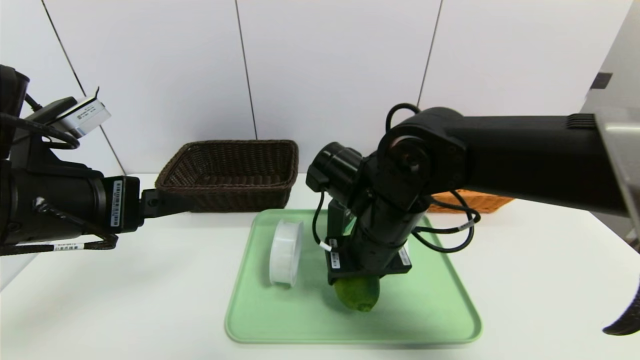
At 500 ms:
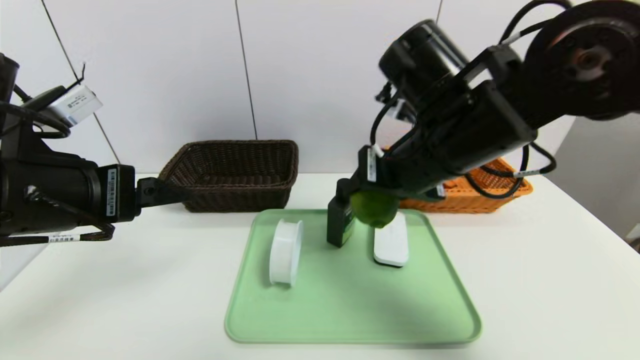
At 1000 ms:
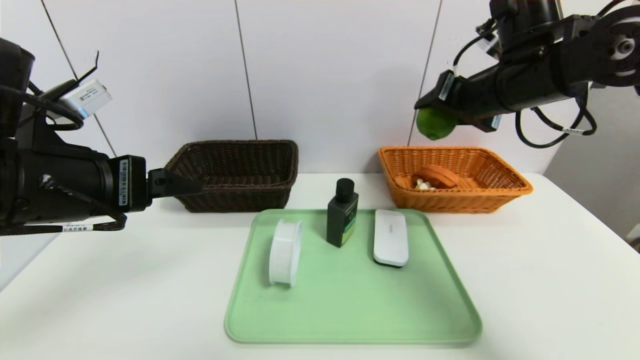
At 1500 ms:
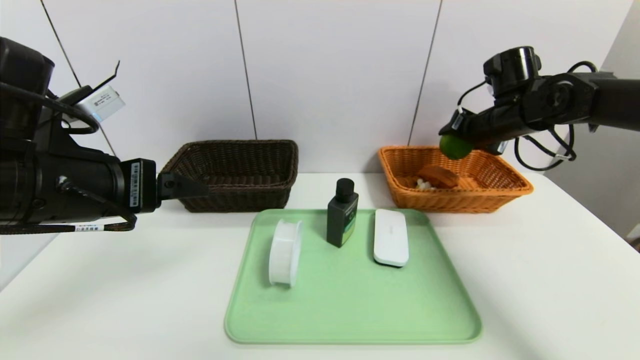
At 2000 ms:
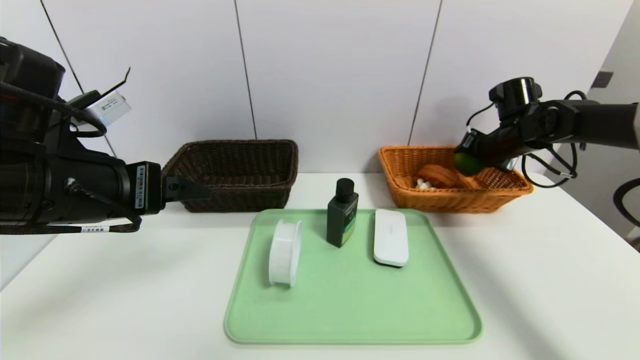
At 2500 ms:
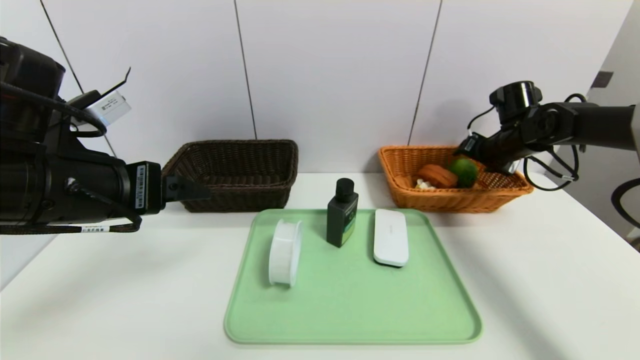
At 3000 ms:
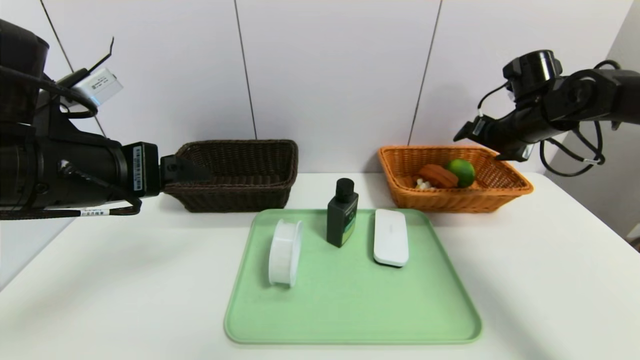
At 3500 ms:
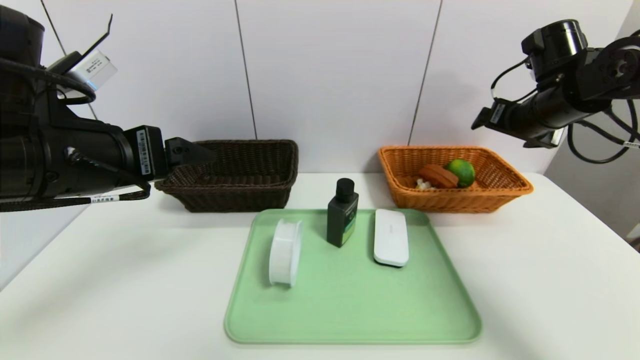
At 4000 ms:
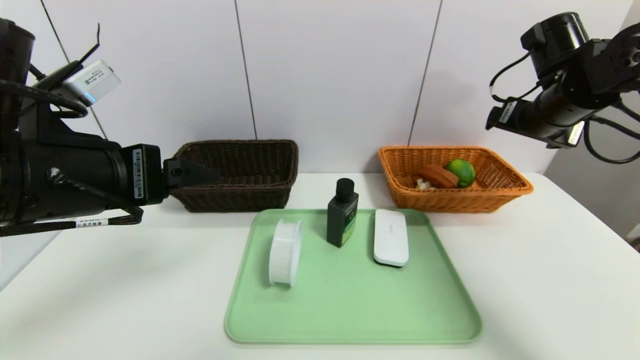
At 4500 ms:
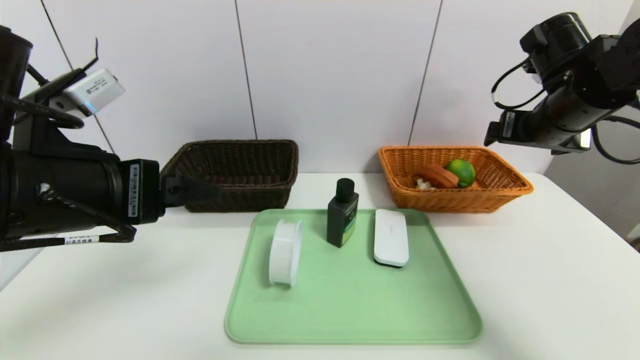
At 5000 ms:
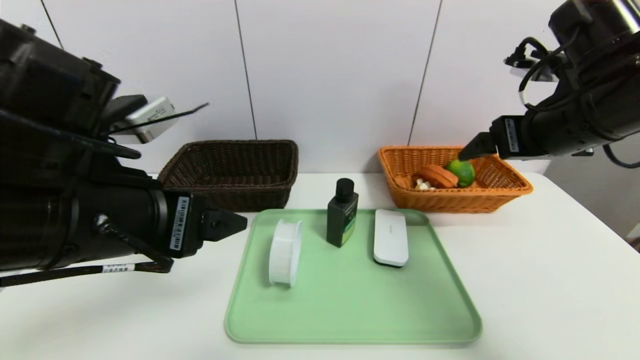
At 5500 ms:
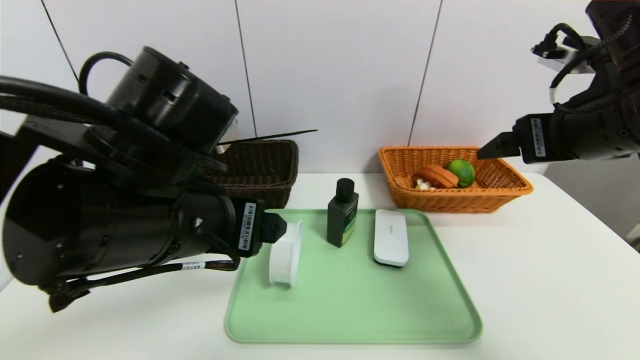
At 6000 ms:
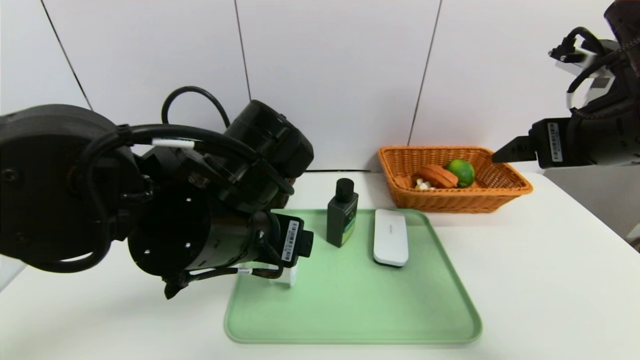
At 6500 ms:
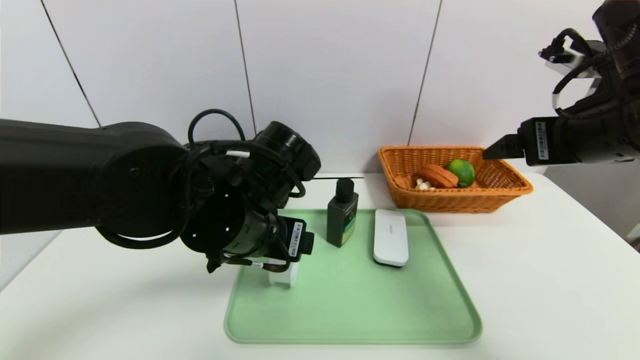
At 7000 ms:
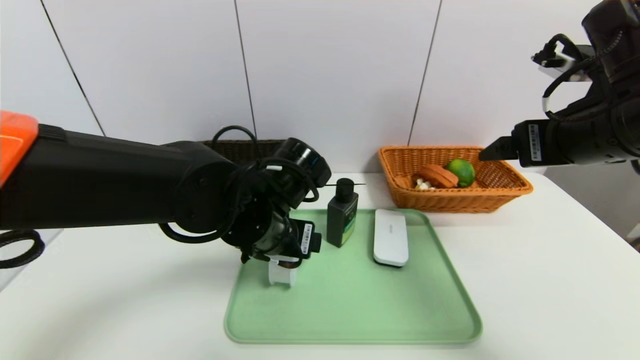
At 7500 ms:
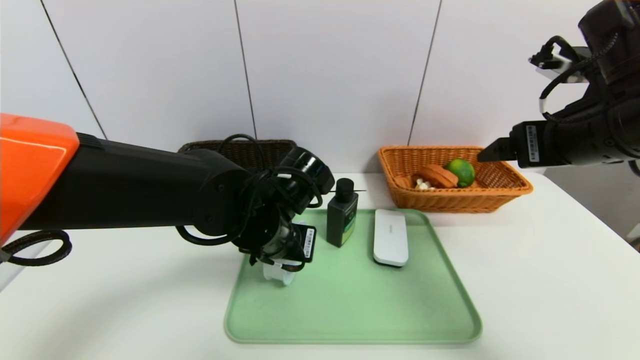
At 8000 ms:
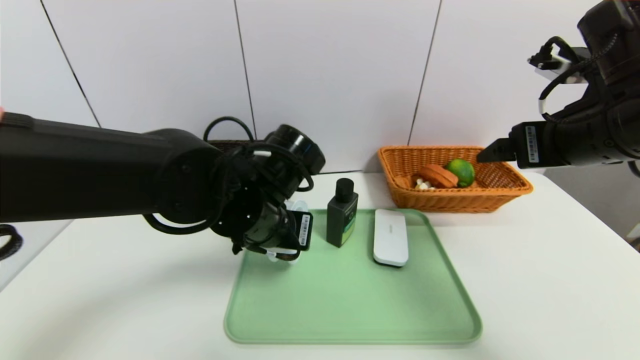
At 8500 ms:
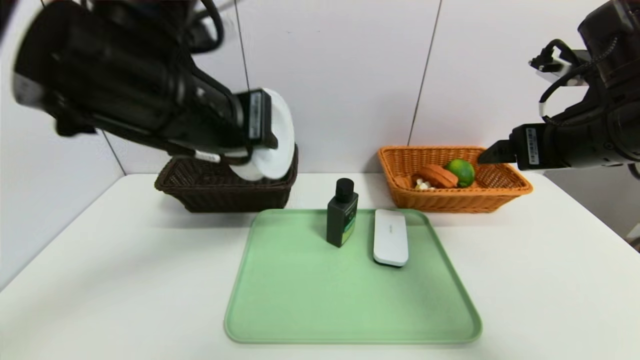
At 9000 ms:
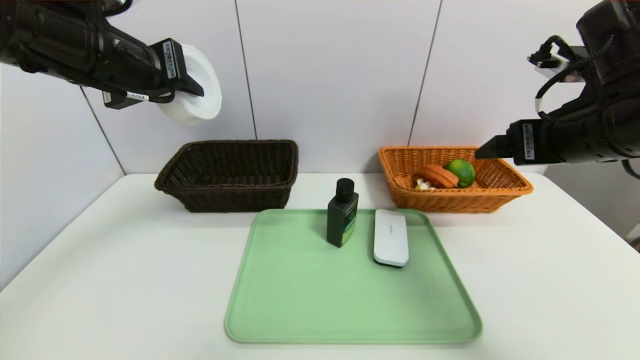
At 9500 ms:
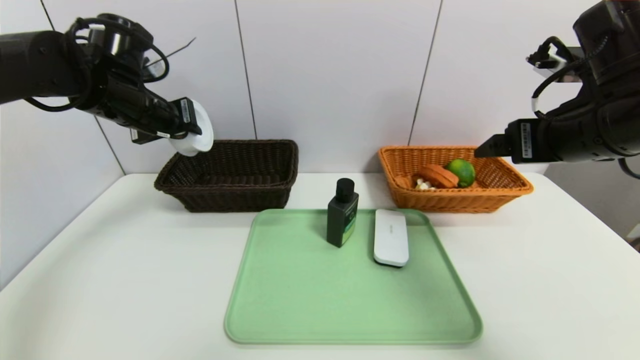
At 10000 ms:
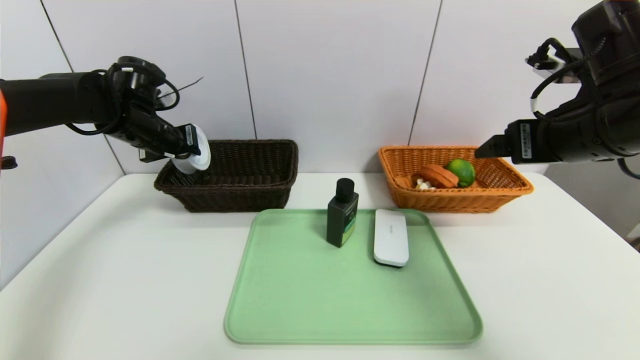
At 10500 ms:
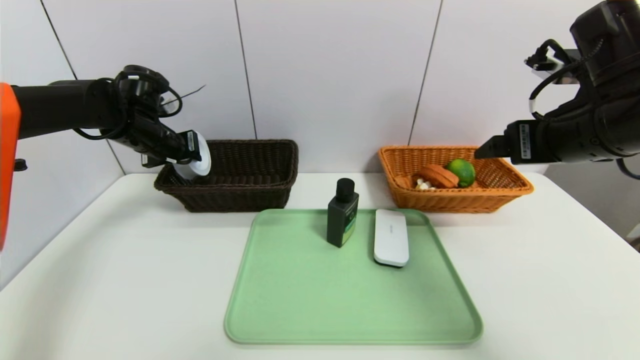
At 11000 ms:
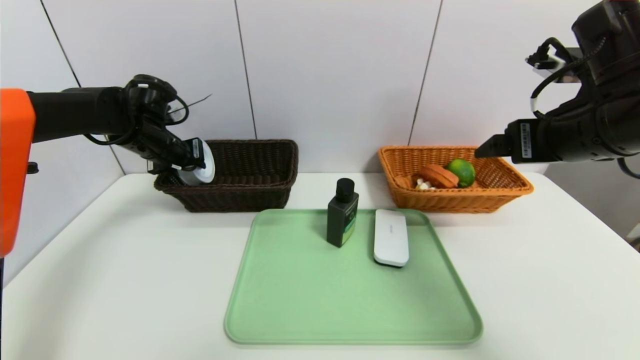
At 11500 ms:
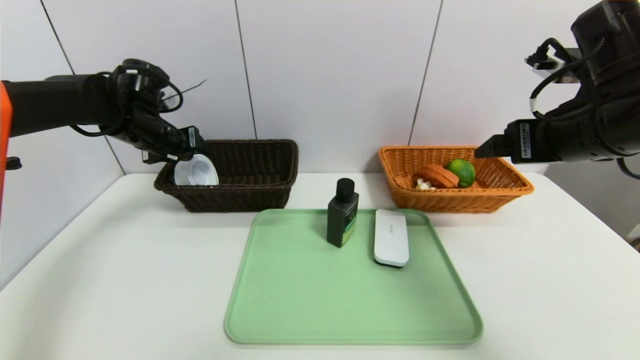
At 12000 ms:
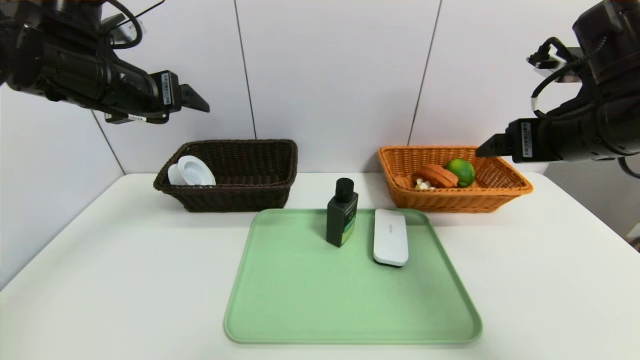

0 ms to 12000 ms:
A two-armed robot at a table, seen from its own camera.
Task of the whole recording: place the food in the right basket with the right gripper, and place the non food items in the left basket with the left gripper.
Step, 0 ms to 2500 ms: Grasp the lime and put it in the right basket.
Step, 3000 ms to 11500 ms: Grasp the tape and put it in the left basket.
0 ms to 2000 ms: The right gripper travels to the right and forward by approximately 35 cm.
2000 ms to 4000 ms: The right gripper heads backward and upward, covering approximately 15 cm, and opens.
4000 ms to 6000 ms: The right gripper goes roughly 15 cm backward; the left gripper goes roughly 15 cm to the right and downward.
6000 ms to 8000 ms: The left gripper travels forward by approximately 5 cm, and closes up.
8000 ms to 10000 ms: The left gripper heads to the left and forward, covering roughly 25 cm.
10000 ms to 12000 ms: The left gripper travels backward and upward by approximately 15 cm, and opens up.

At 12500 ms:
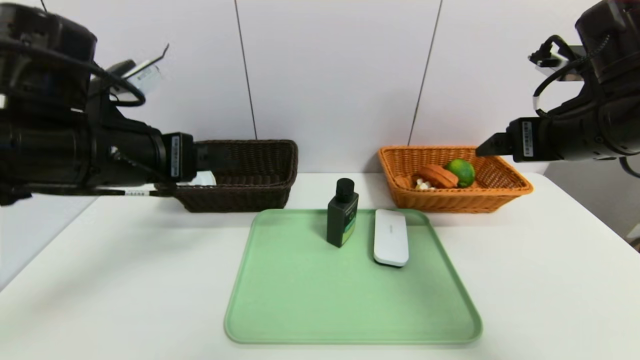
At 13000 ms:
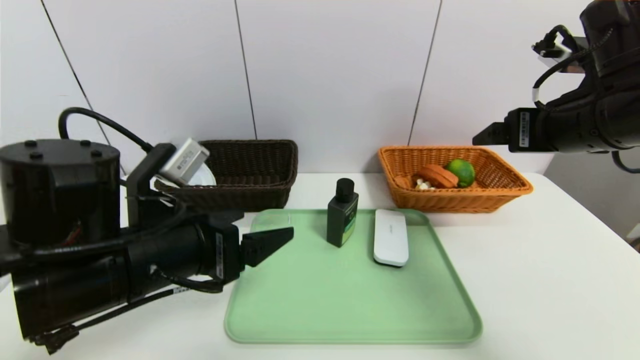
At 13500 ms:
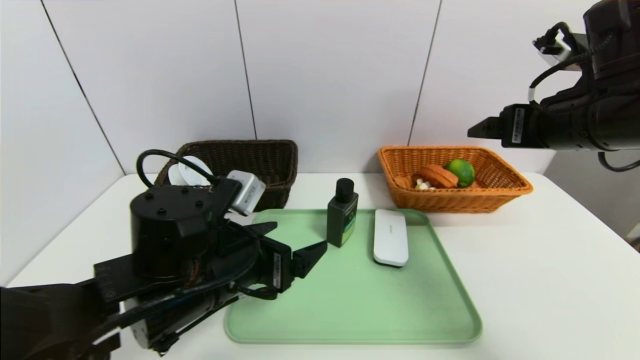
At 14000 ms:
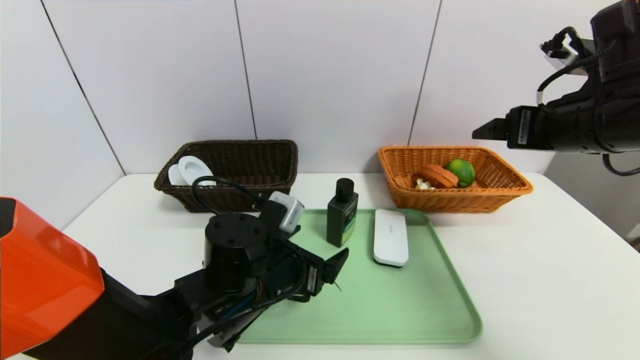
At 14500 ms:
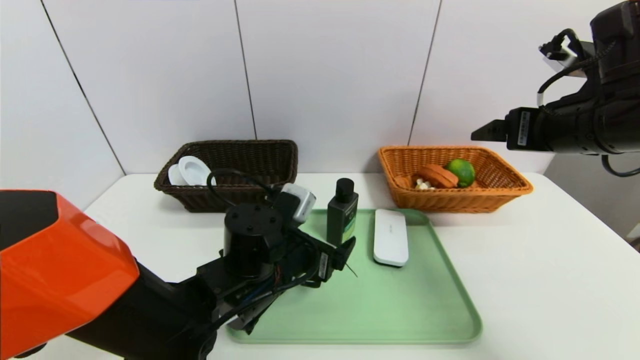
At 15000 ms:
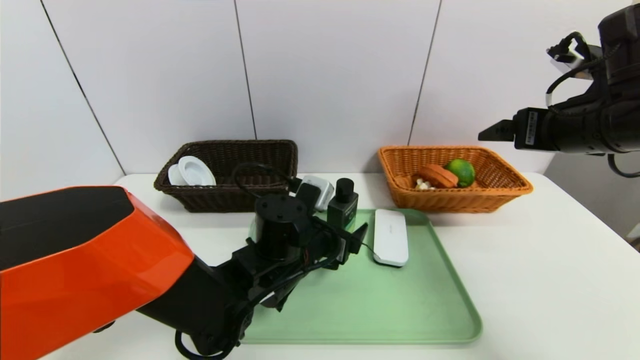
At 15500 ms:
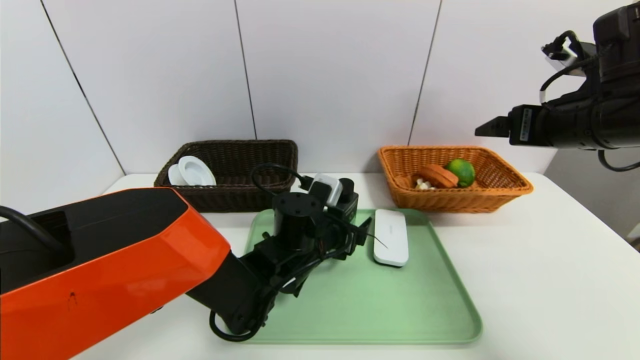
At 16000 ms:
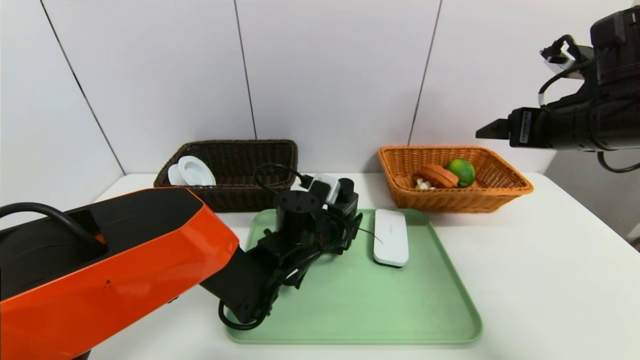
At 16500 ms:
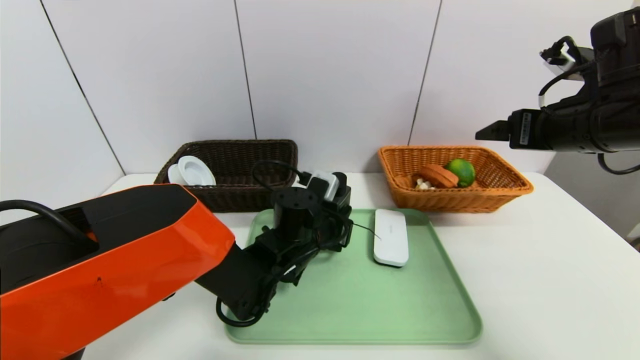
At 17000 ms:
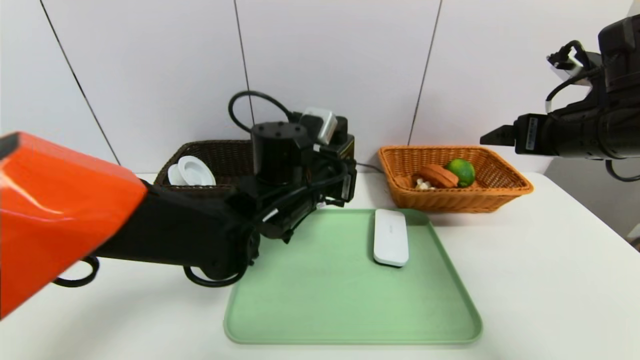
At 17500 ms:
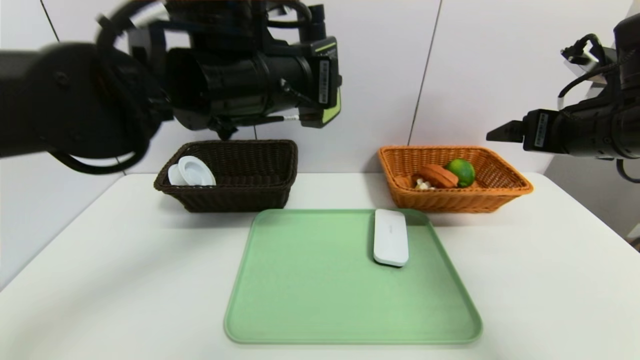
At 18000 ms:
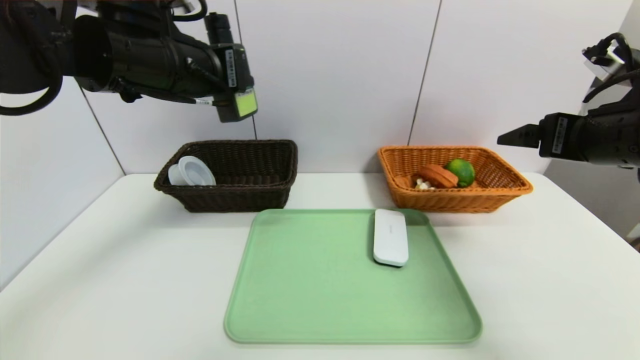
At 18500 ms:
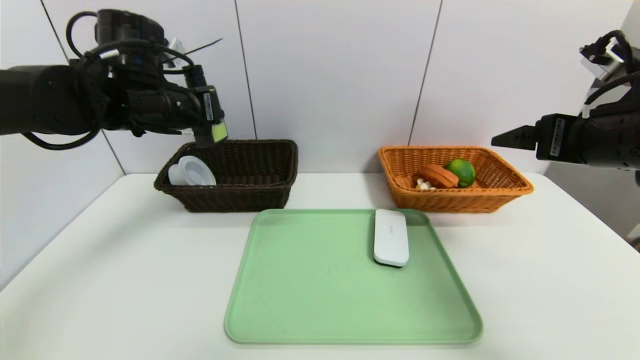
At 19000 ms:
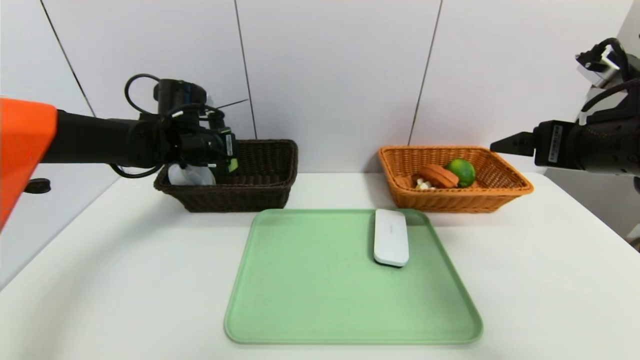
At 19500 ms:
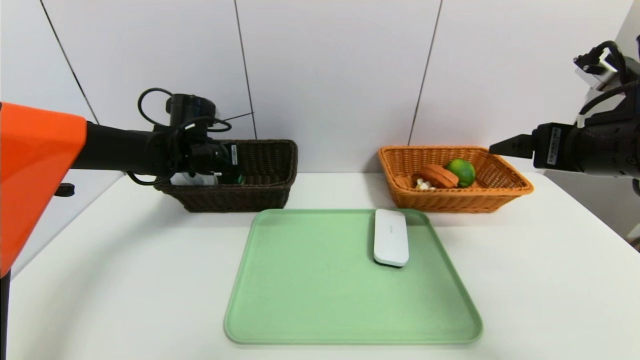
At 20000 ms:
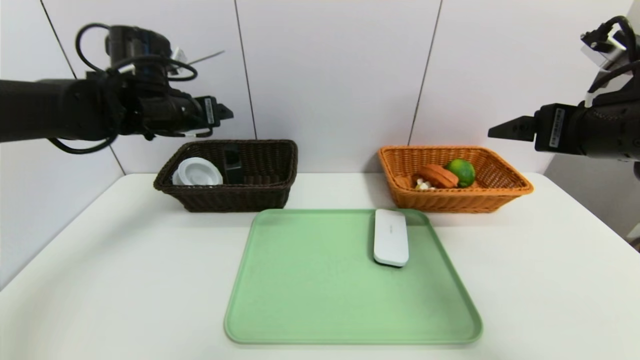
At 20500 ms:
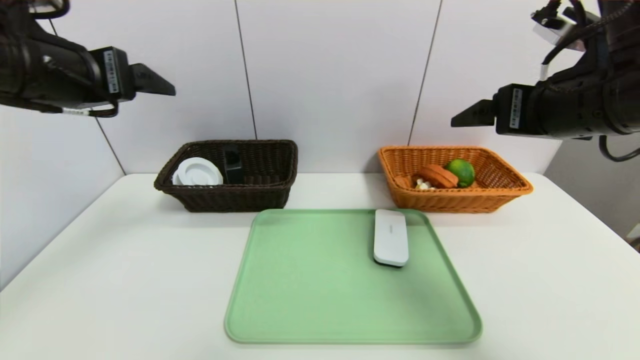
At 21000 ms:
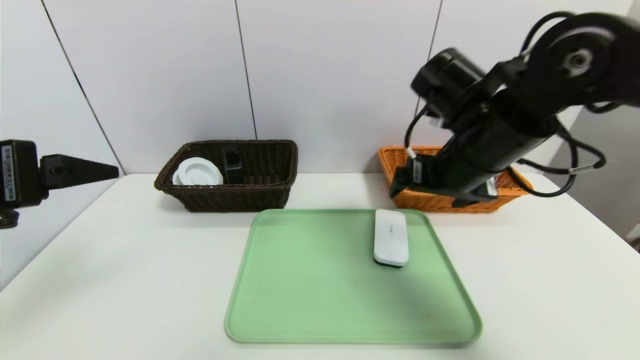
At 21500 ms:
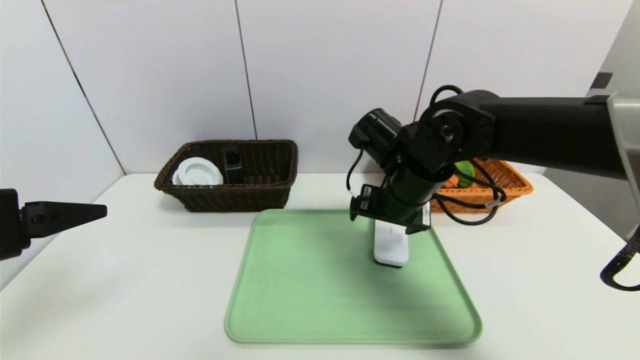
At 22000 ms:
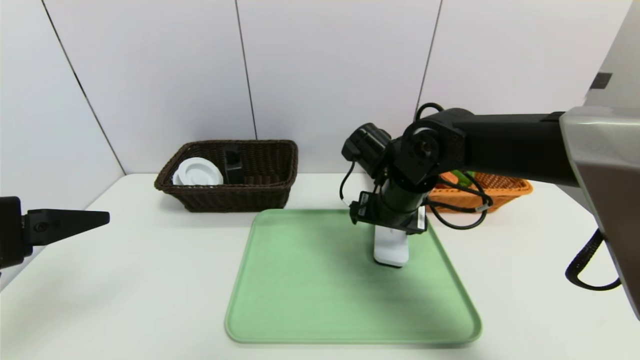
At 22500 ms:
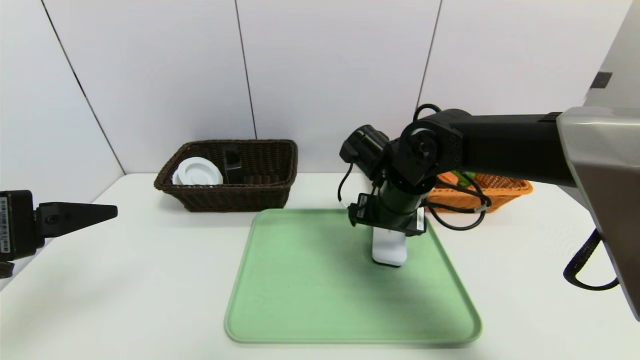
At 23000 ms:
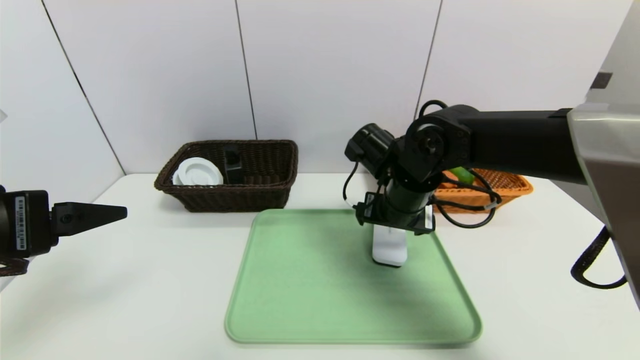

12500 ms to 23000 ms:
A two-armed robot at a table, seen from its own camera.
Task of the whole recording: place the food in the right basket with the right gripper, and place the non food items in the left basket with the left gripper.
Step, 12500 ms to 19500 ms: Grasp the hard cleanser and put it in the left basket.
12500 ms to 14500 ms: The left gripper travels downward and to the right by roughly 20 cm.
14500 ms to 16500 ms: The left gripper moves forward, approximately 5 cm, and closes up.
16500 ms to 19000 ms: The right gripper is displaced backward by approximately 5 cm; the left gripper travels to the left, upward and forward by some 25 cm.
19000 ms to 21000 ms: The left gripper goes approximately 30 cm backward, and opens. Meanwhile the right gripper travels to the left and forward by roughly 15 cm.
21000 ms to 23000 ms: The right gripper travels downward by some 10 cm.
